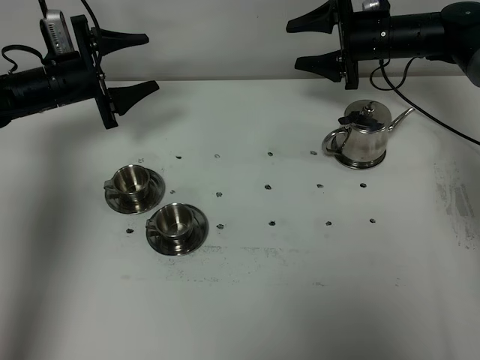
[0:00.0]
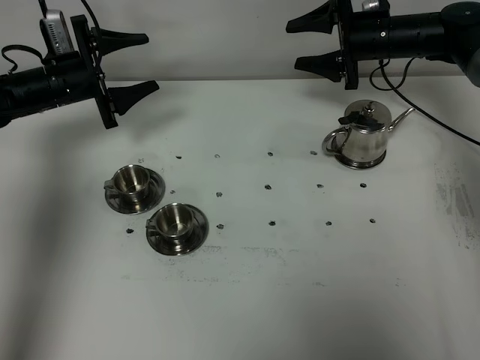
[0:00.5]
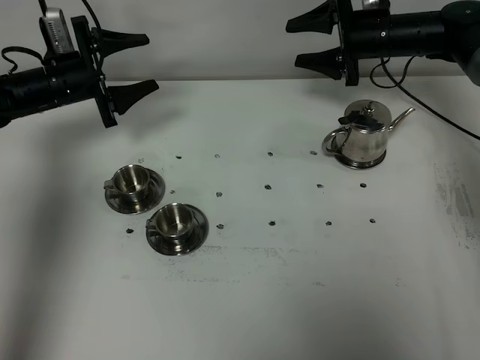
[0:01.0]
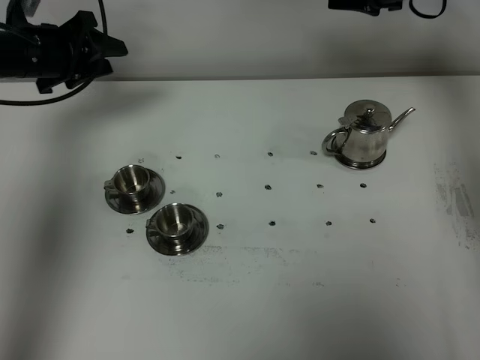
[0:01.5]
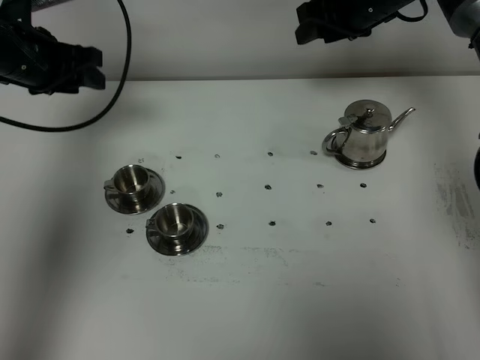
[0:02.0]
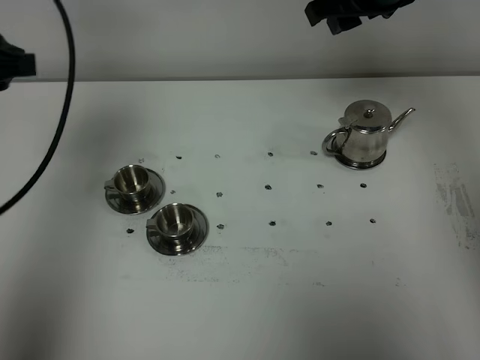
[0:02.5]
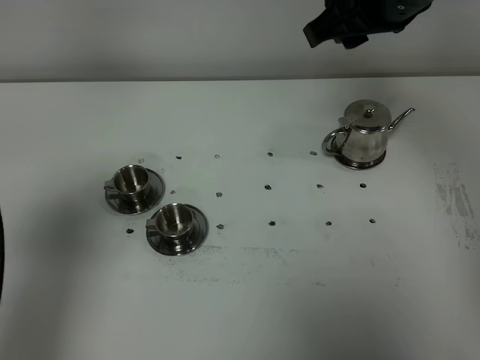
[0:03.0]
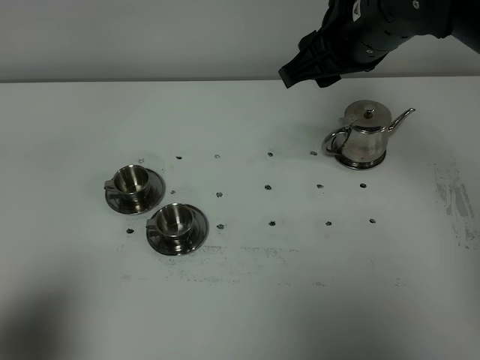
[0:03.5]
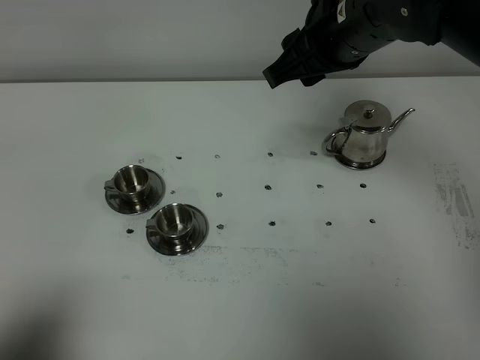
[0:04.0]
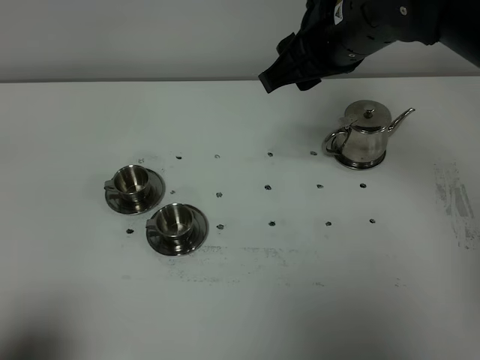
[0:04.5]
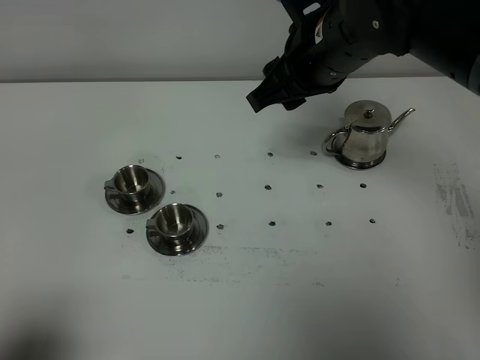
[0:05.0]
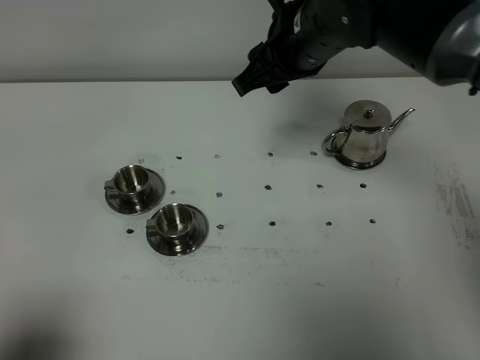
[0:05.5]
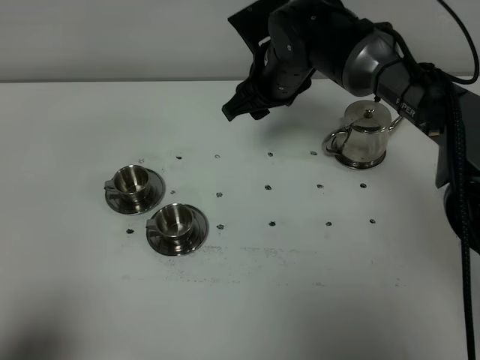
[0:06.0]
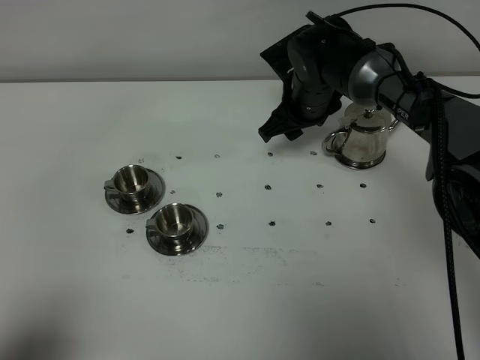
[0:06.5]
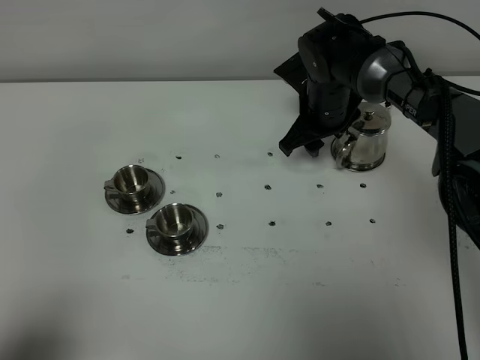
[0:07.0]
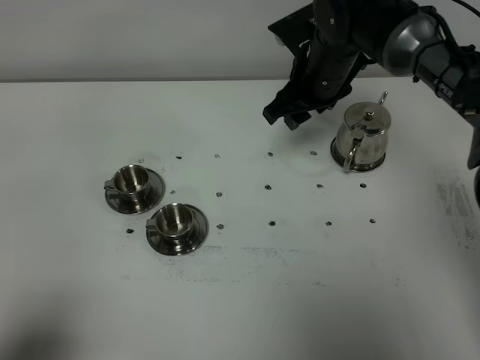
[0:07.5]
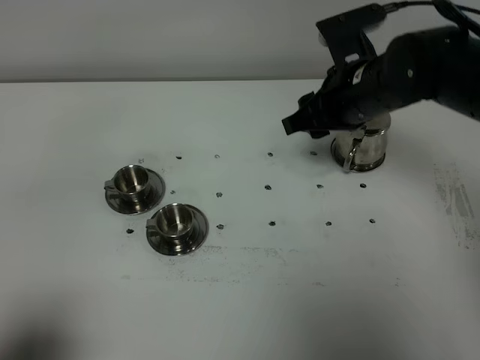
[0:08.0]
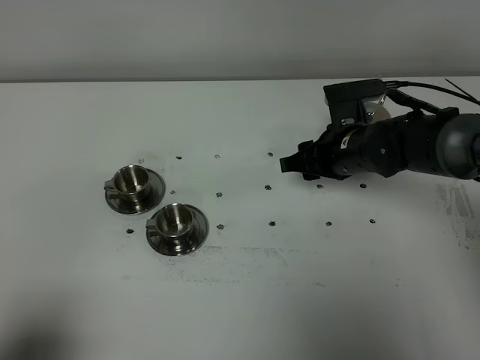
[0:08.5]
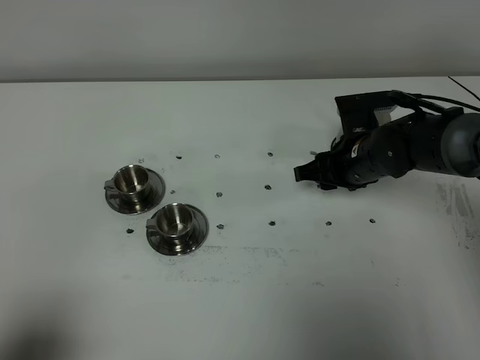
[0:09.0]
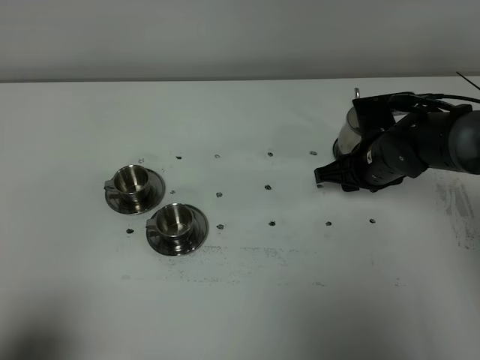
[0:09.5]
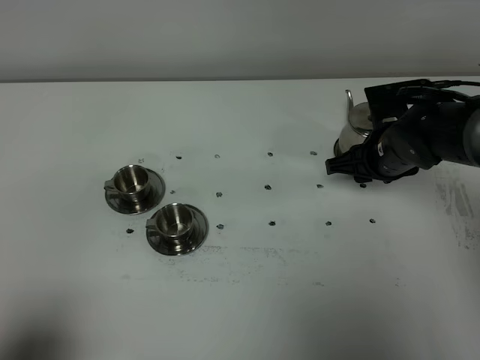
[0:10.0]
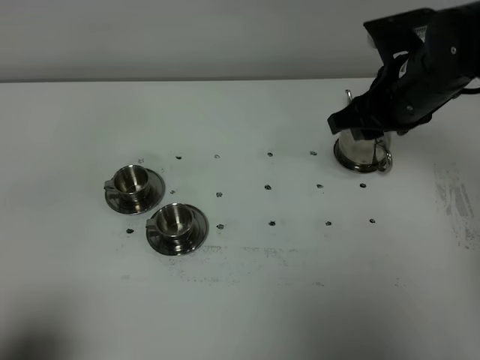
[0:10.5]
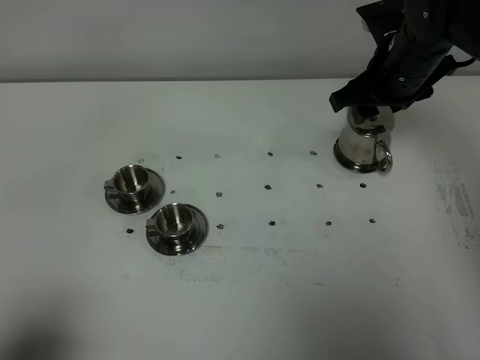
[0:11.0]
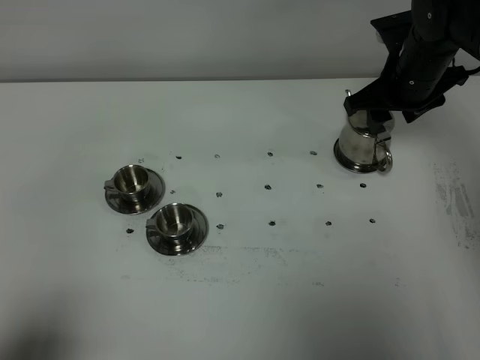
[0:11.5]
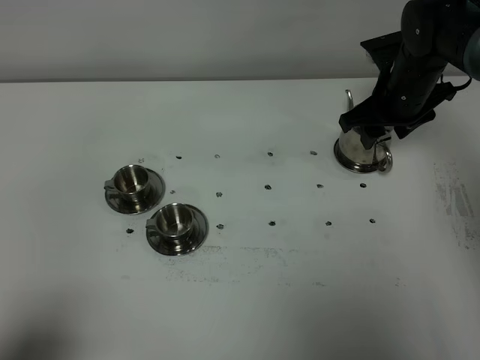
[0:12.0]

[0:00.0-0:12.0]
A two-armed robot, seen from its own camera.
Task of the whole recording: grasp the stainless steel teapot and pour the tea into the two stainless steel teacups one by one, put the stainless steel teapot back in its original place.
0:00.0 to 0:02.0: Both grippers travel together upward, approximately 10 cm. The left gripper closes up.
0:02.0 to 0:04.0: The right gripper is displaced backward, upward and to the left by approximately 20 cm. Meanwhile the left gripper travels backward by approximately 40 cm, and closes up.
0:04.0 to 0:06.0: The right gripper goes about 15 cm downward and forward.
0:06.0 to 0:08.0: The right gripper travels to the right and backward by some 10 cm.
0:08.0 to 0:10.0: The right gripper travels downward by some 5 cm.
0:10.0 to 0:12.0: The right gripper goes approximately 5 cm forward.

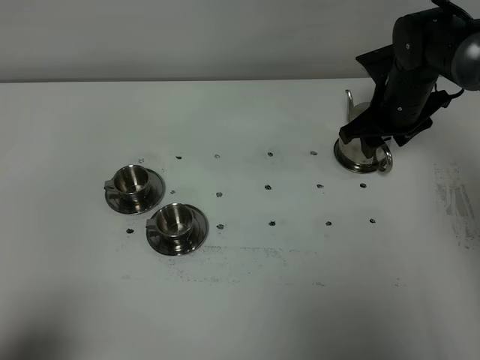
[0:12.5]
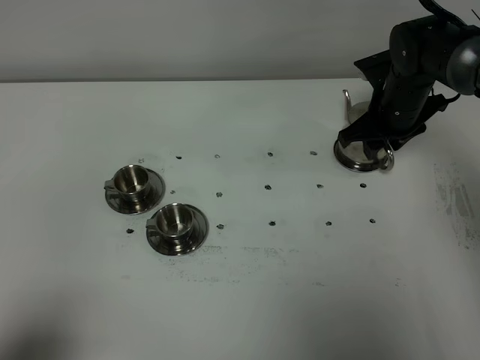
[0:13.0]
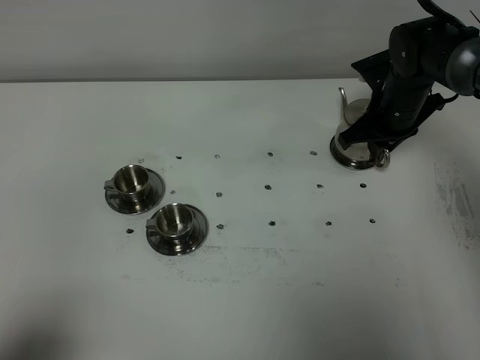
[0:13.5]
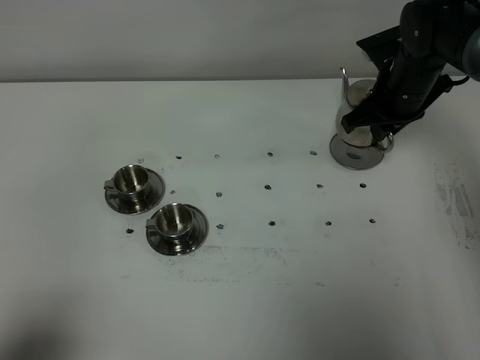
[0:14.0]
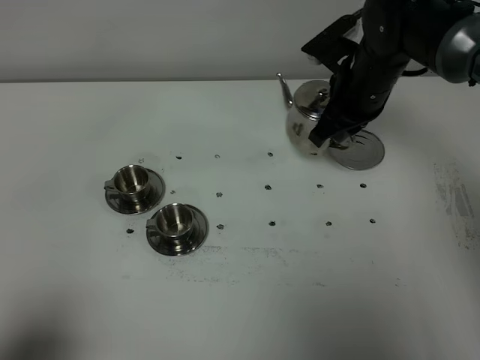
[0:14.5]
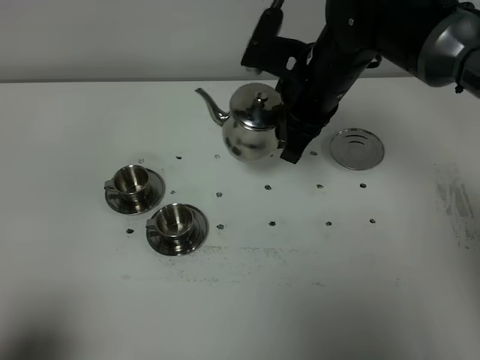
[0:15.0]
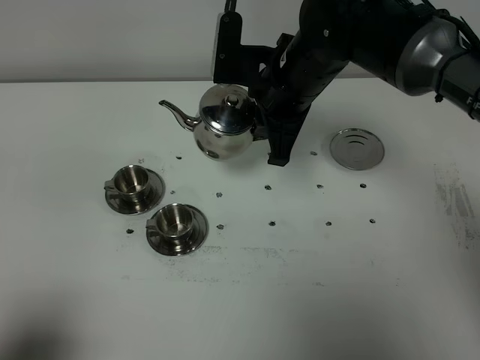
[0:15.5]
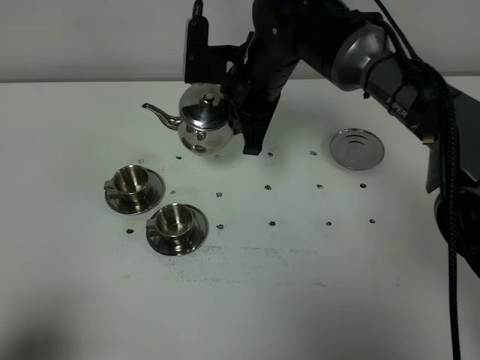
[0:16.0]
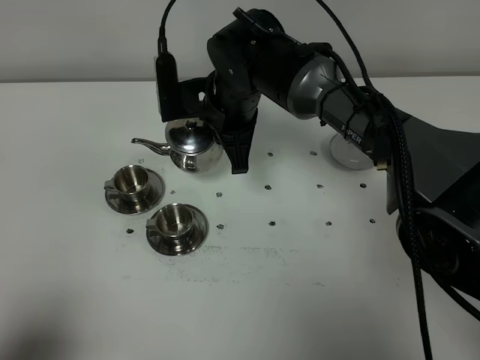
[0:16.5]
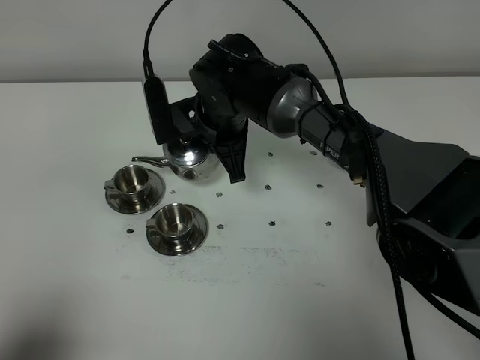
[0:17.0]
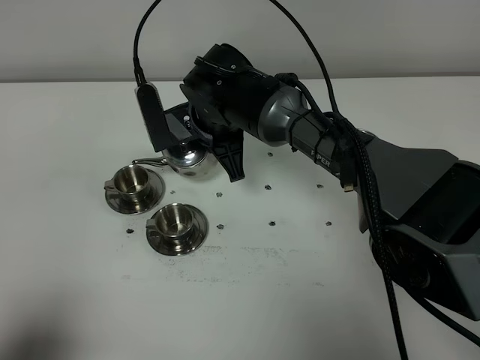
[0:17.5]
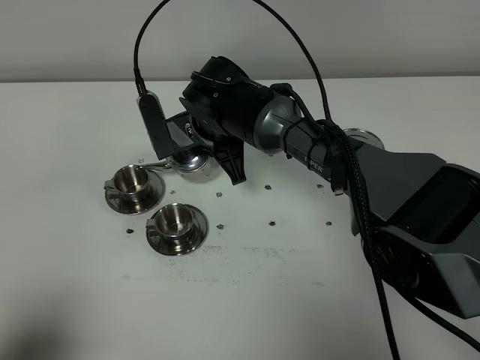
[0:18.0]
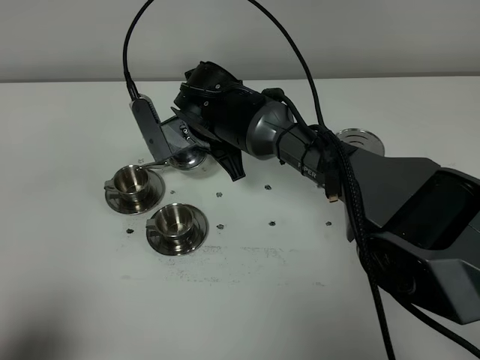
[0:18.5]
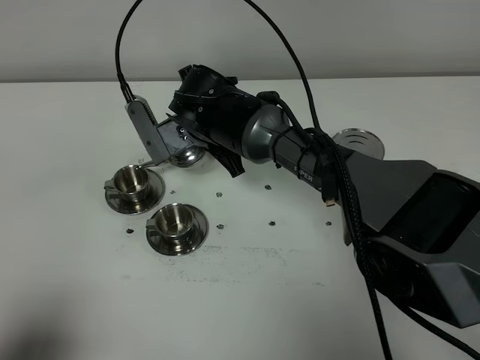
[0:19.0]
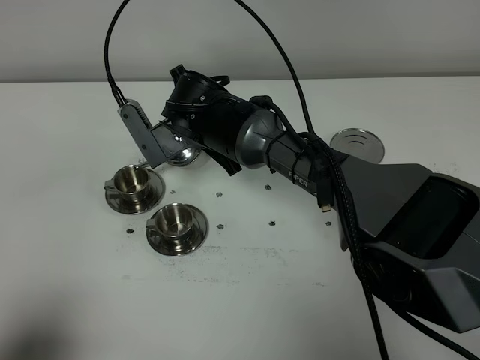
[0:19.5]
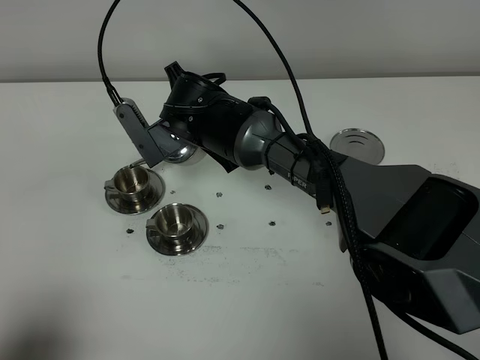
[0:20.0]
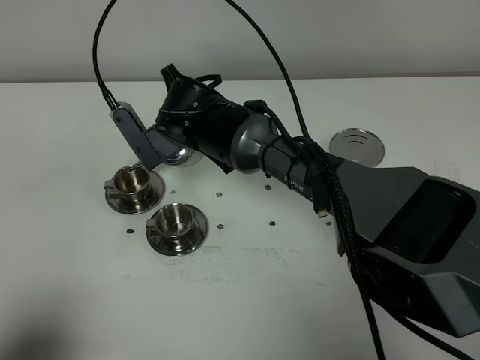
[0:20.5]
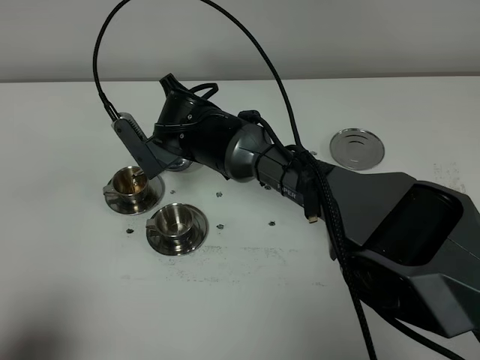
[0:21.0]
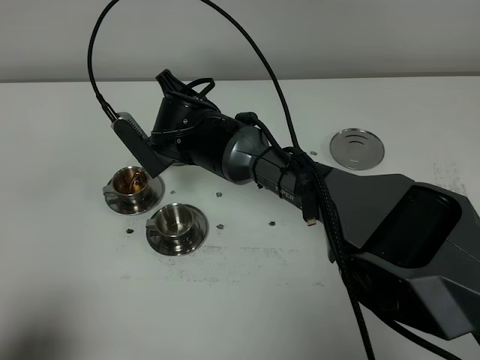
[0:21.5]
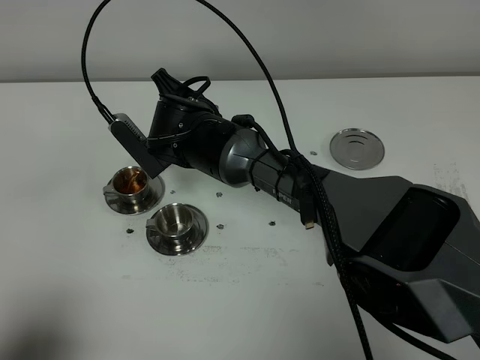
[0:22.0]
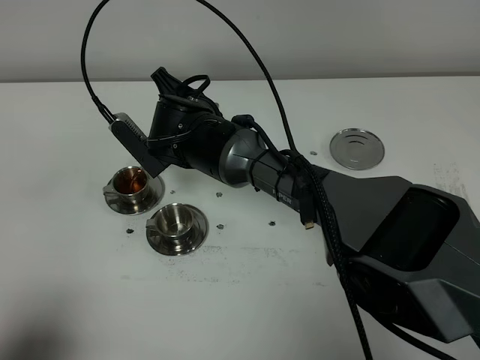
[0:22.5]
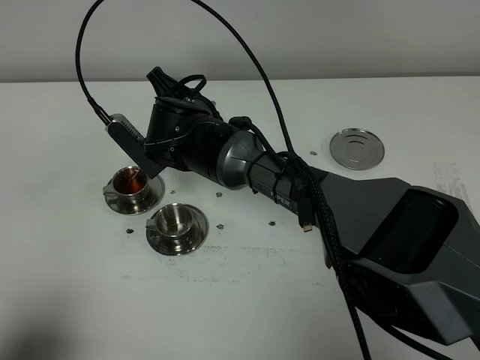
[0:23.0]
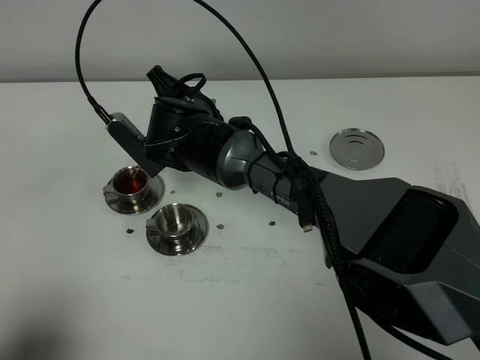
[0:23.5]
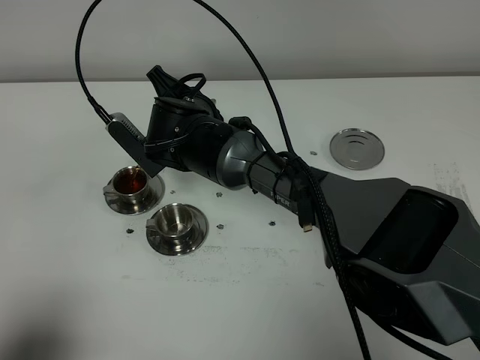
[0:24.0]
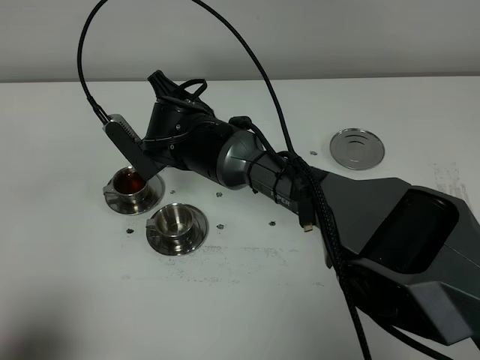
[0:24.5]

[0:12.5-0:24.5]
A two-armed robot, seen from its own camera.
Task of the whole recording: grasp the stainless steel teapot and pour the tea into the two stainless steel teacups one by one, put the stainless steel teapot back in its original place.
0:12.5 to 0:14.5: The right gripper travels to the left and upward by about 10 cm, and closes its fingers.
0:14.5 to 0:16.5: The right gripper moves to the left, approximately 15 cm.
0:16.5 to 0:18.5: The right gripper changes place by about 5 cm.
0:18.5 to 0:20.5: The grippers make only small movements.
0:20.5 to 0:22.5: There are only small adjustments of the grippers.
0:22.5 to 0:24.5: Both grippers stay about where they are.

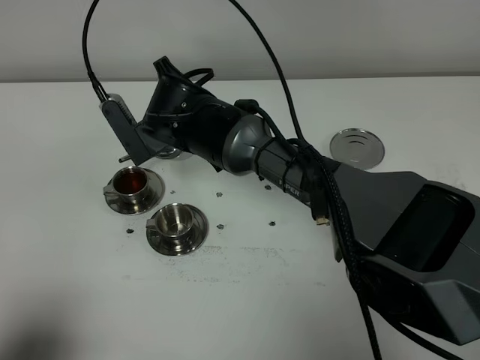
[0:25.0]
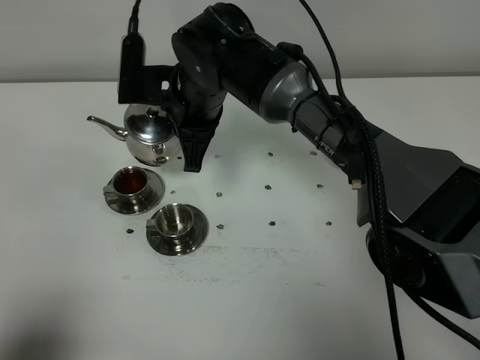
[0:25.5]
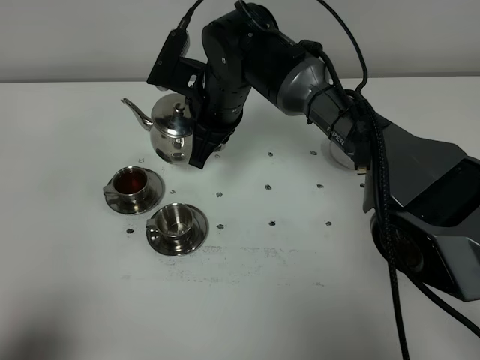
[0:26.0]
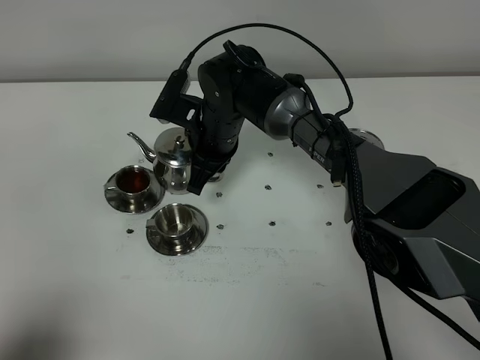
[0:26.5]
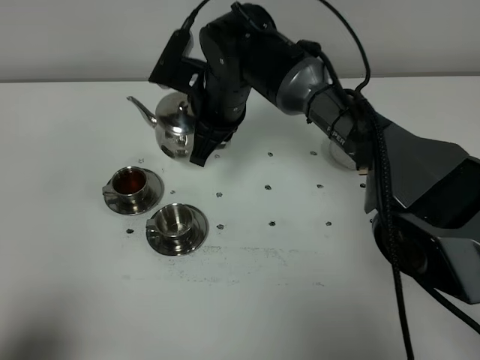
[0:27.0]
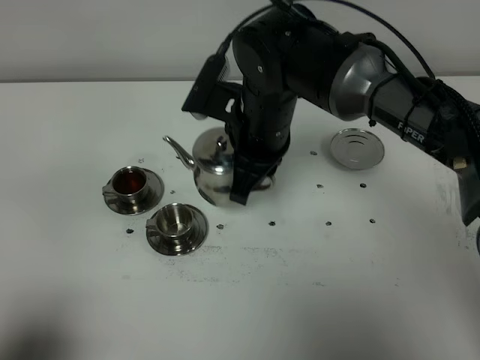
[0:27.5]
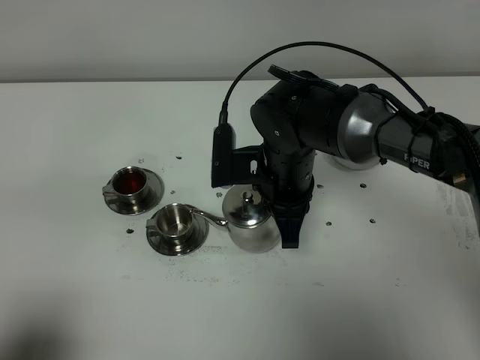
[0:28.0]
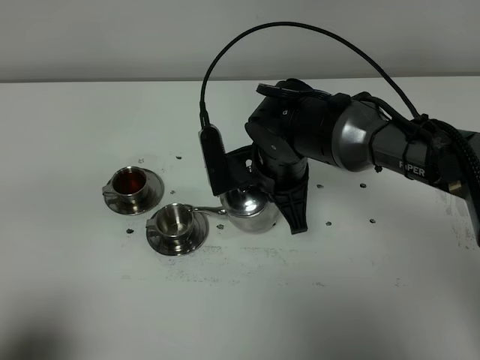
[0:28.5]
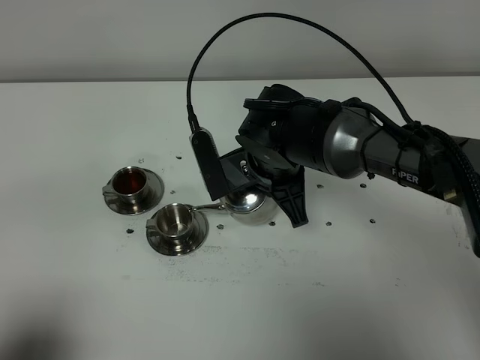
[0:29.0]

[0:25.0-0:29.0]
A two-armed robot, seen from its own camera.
Task of the whole recording: grasp the stainless steel teapot and pour the tea into the two stainless steel teacups one by one, put the stainless steel teapot back in its original place.
0:25.0 to 0:27.0: The right gripper goes downward and returns, about 5 cm each way.
0:27.0 to 0:29.0: The right gripper travels backward and to the right by approximately 10 cm.
